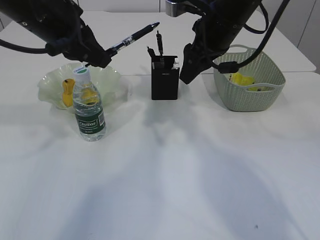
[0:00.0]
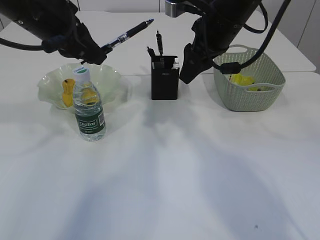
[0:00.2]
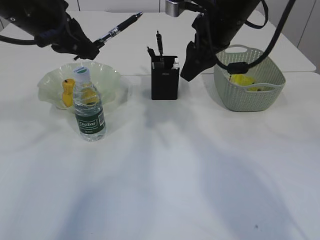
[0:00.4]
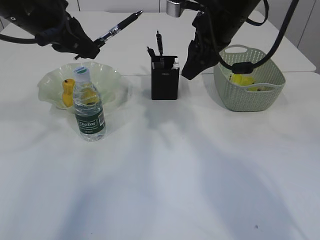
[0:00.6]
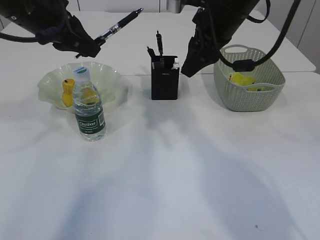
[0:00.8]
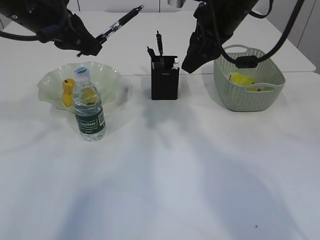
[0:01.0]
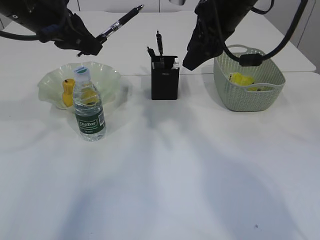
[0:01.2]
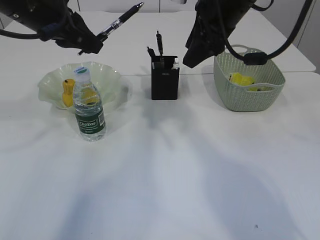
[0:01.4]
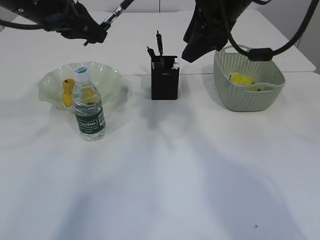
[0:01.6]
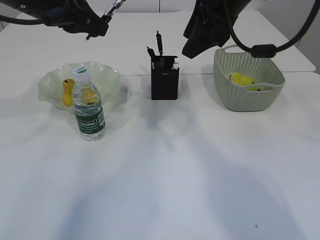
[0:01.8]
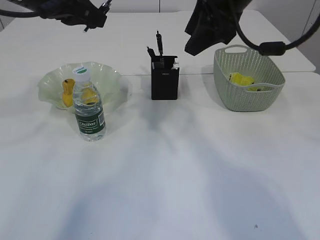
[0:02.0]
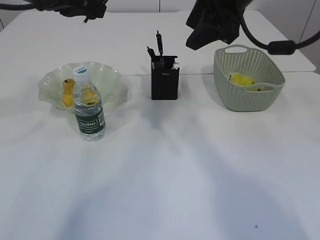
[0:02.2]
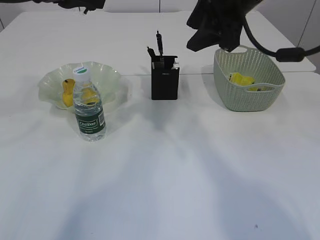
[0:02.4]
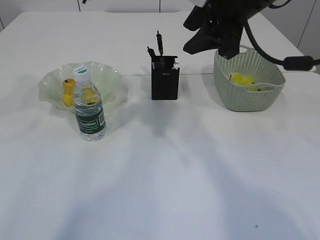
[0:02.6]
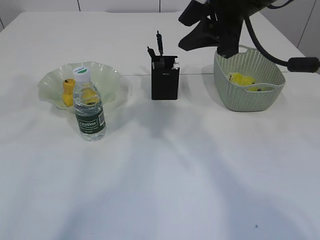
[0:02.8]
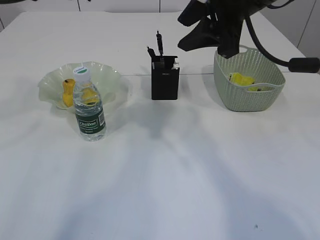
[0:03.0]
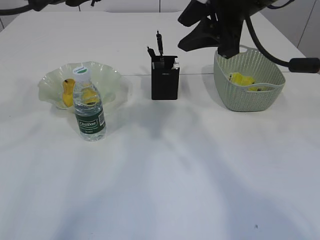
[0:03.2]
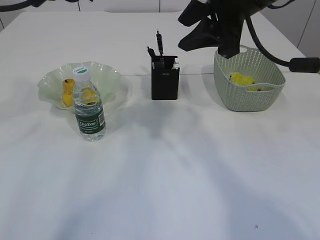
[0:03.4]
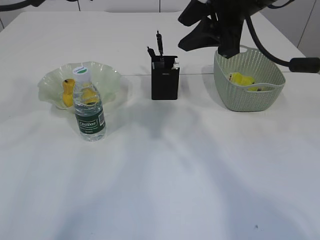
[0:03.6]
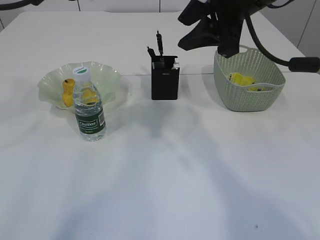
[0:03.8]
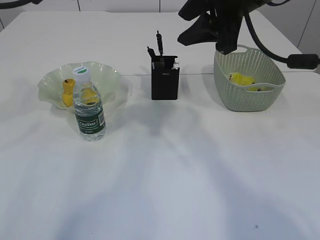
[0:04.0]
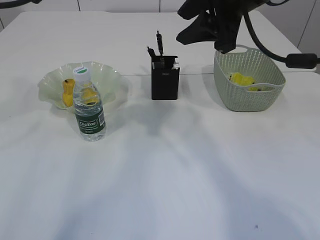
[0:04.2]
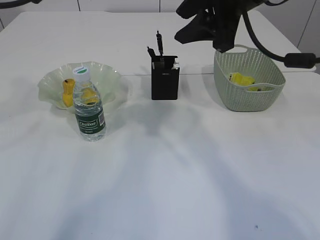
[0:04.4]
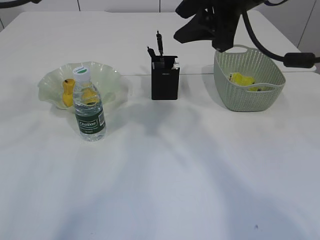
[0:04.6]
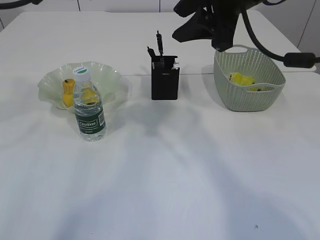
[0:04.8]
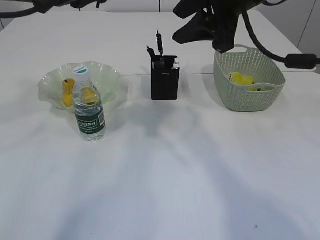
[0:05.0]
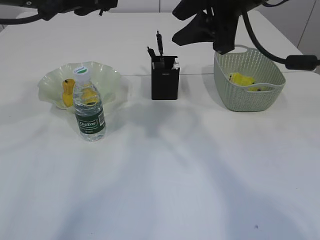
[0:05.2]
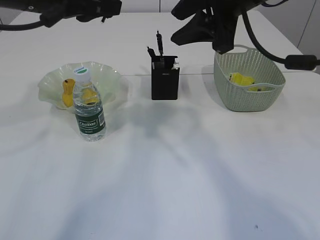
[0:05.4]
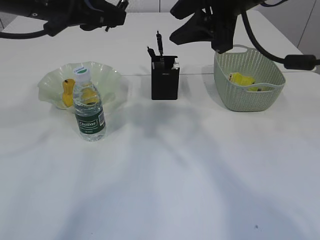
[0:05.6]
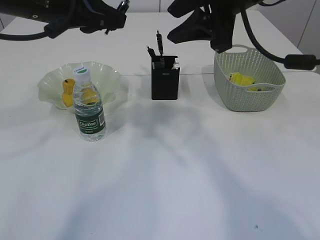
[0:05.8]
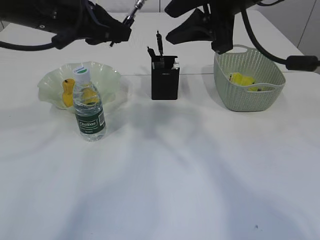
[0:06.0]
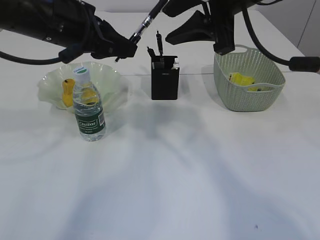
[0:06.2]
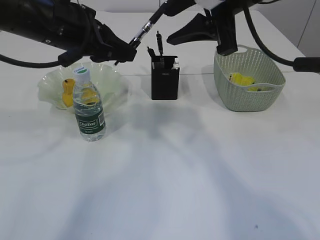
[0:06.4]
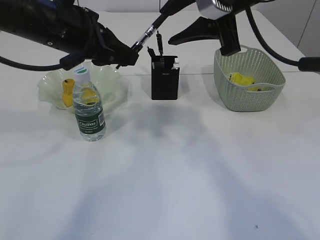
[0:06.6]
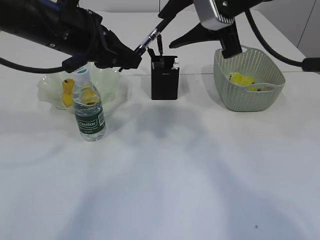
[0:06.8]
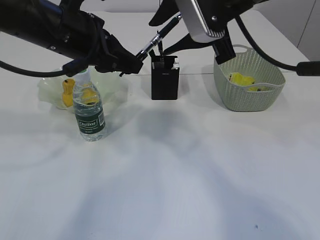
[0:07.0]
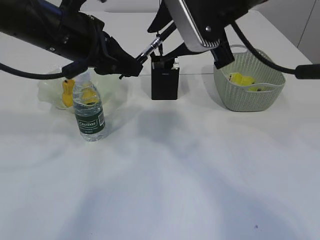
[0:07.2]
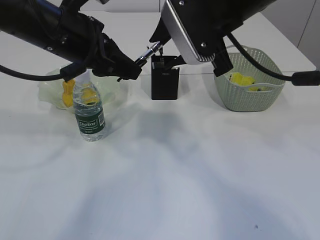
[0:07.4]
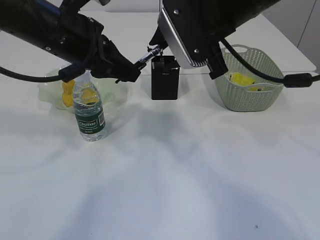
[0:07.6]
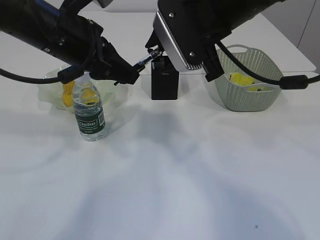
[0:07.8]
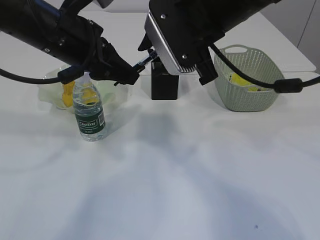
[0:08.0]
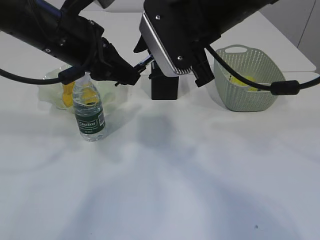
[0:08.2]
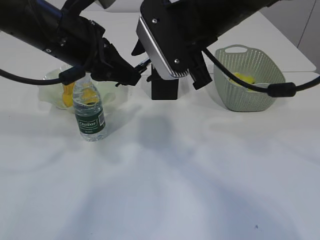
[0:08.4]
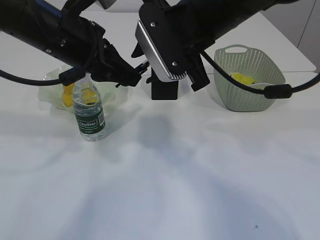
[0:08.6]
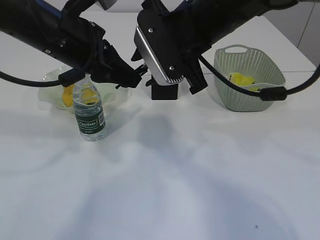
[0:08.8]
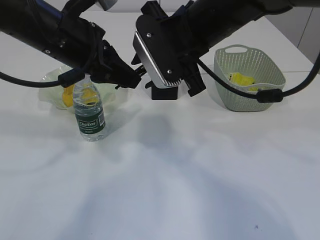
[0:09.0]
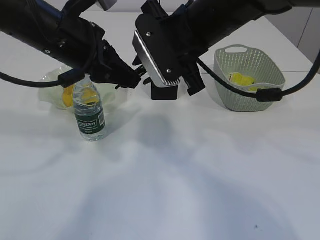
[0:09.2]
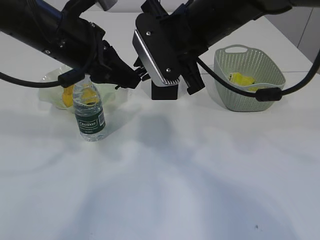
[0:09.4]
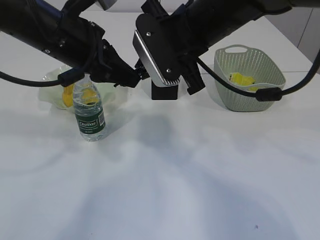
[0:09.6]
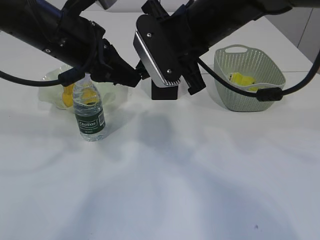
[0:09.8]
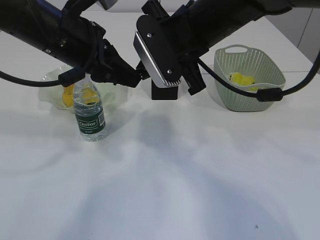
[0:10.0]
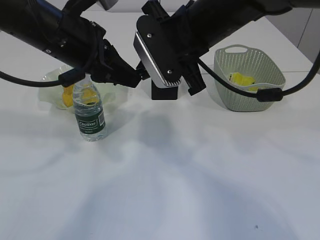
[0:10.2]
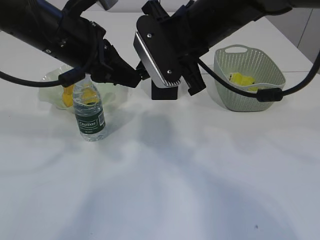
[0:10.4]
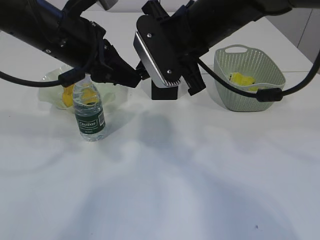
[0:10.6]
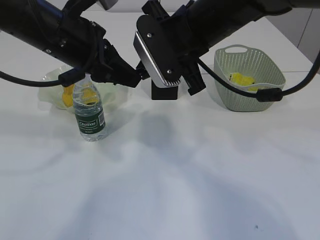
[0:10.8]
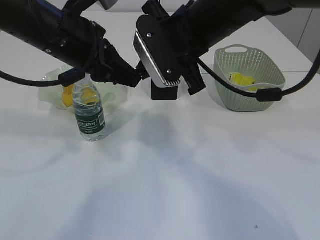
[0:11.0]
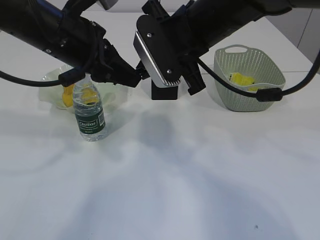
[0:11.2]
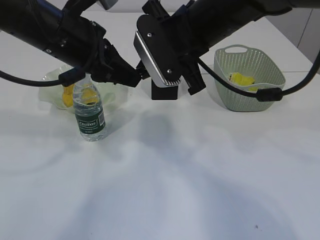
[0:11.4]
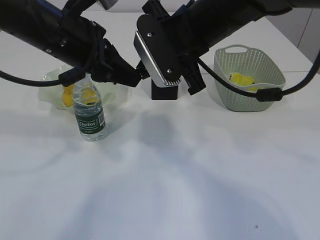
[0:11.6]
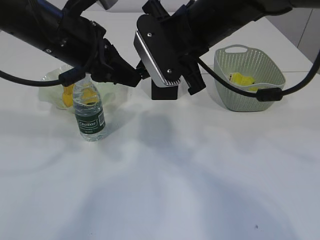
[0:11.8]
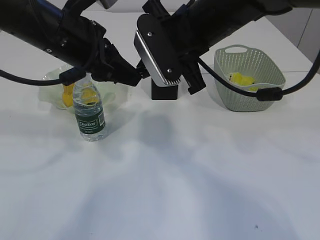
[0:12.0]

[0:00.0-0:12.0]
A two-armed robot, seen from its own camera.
0:00.0 to 0:01.6: The right gripper ends up approximately 5 cm from where it was.
0:03.0 to 0:06.0: The grippers move only a little.
0:07.6 to 0:09.0: The grippers make only small movements.
0:09.0 to 0:10.4: The right gripper closes up.
0:10.4 to 0:12.0: Both grippers stay put.

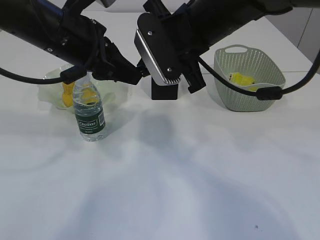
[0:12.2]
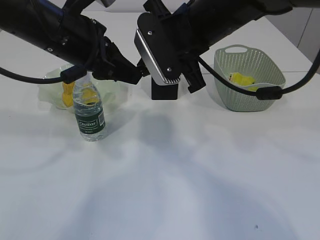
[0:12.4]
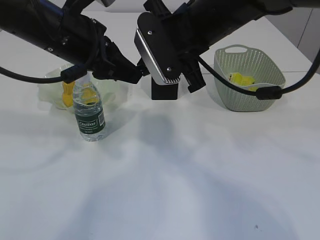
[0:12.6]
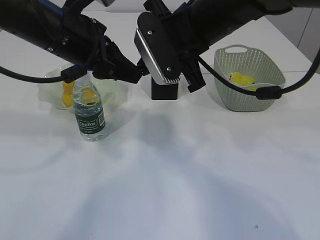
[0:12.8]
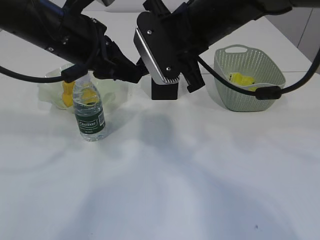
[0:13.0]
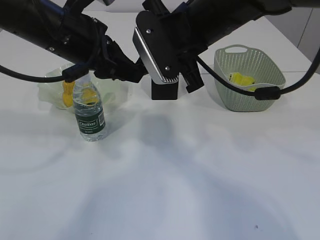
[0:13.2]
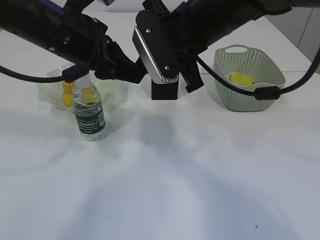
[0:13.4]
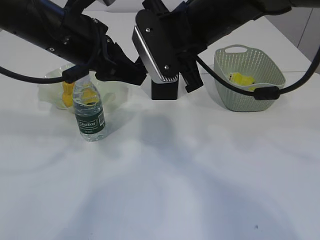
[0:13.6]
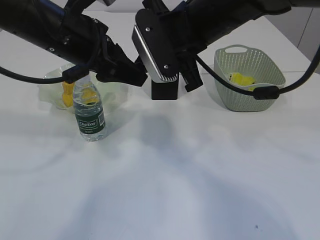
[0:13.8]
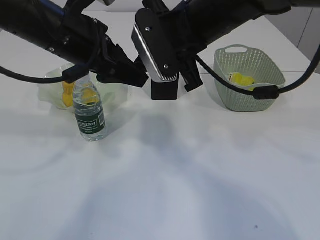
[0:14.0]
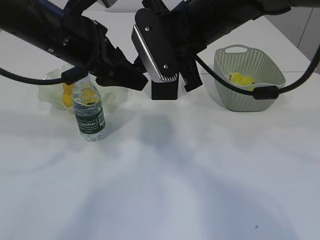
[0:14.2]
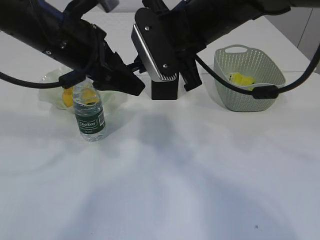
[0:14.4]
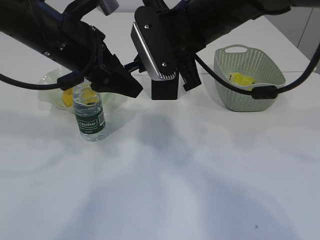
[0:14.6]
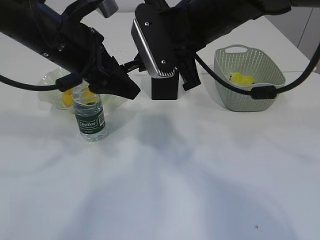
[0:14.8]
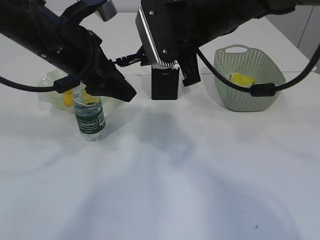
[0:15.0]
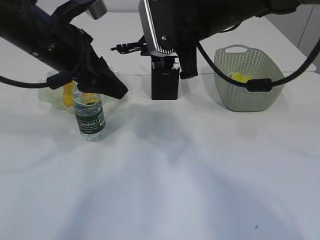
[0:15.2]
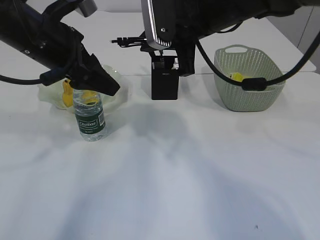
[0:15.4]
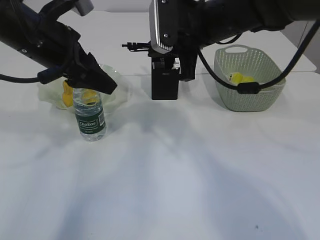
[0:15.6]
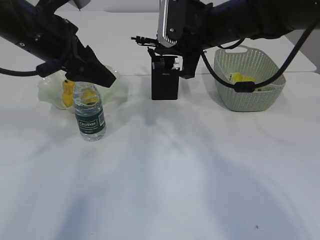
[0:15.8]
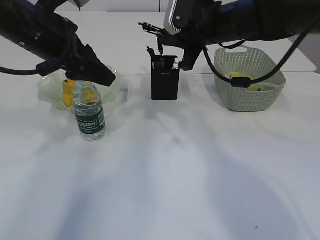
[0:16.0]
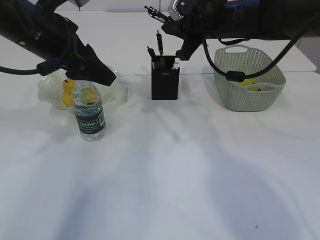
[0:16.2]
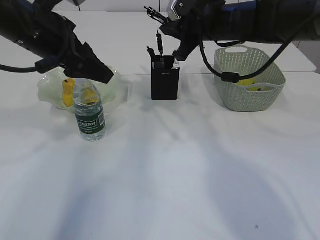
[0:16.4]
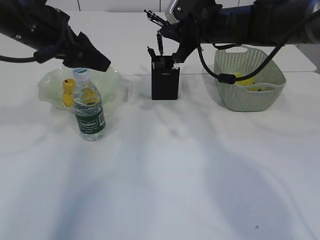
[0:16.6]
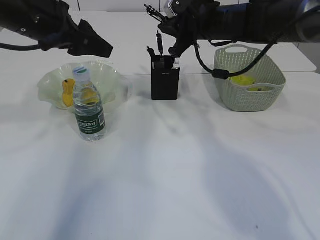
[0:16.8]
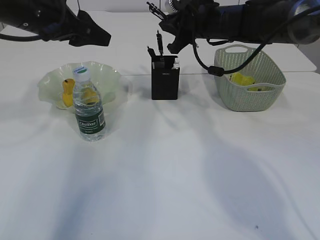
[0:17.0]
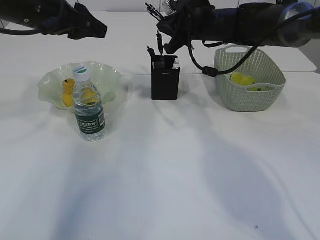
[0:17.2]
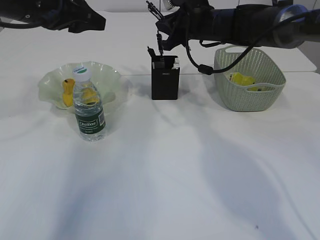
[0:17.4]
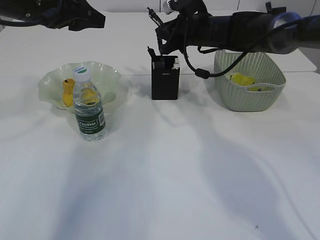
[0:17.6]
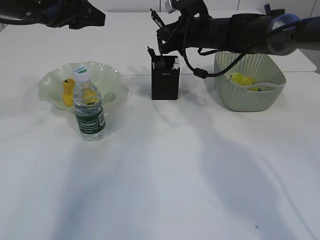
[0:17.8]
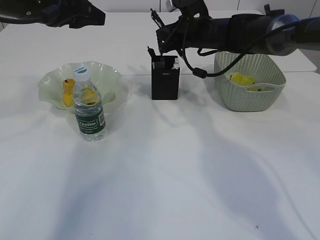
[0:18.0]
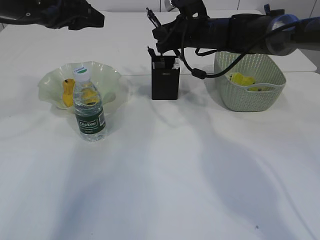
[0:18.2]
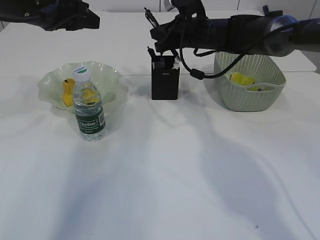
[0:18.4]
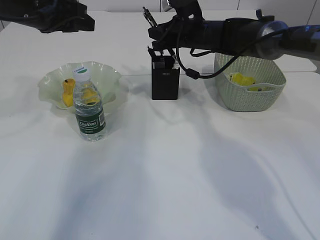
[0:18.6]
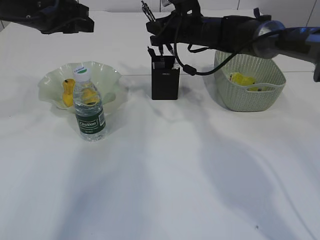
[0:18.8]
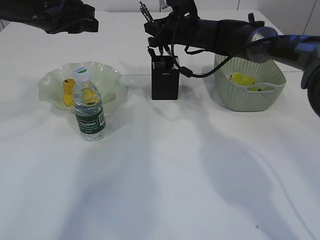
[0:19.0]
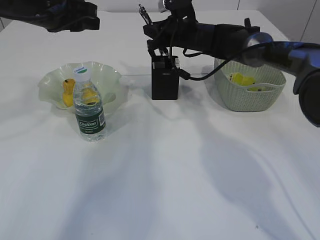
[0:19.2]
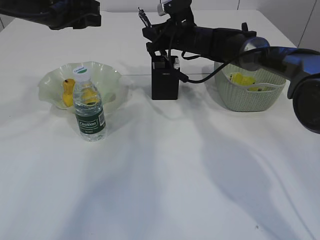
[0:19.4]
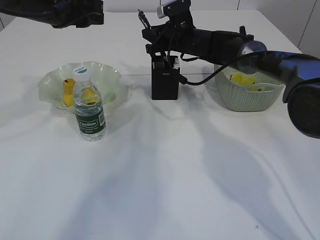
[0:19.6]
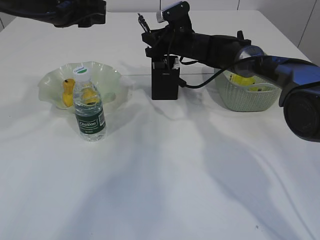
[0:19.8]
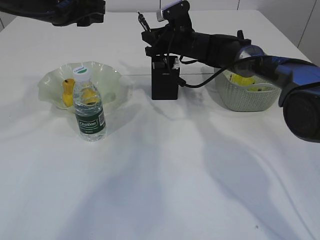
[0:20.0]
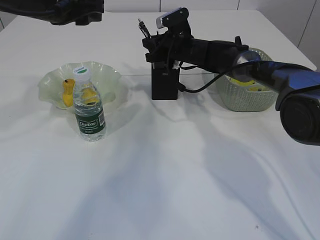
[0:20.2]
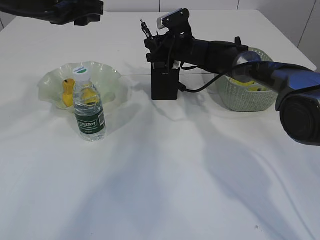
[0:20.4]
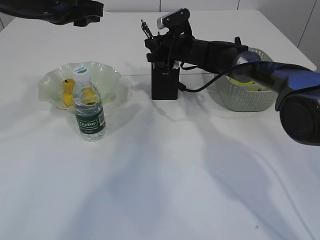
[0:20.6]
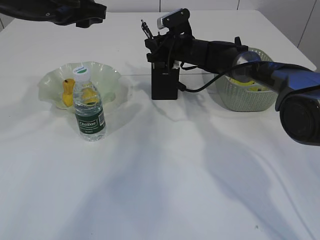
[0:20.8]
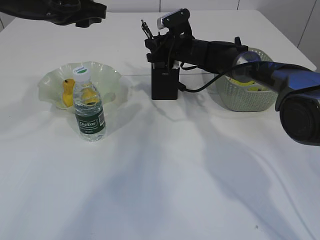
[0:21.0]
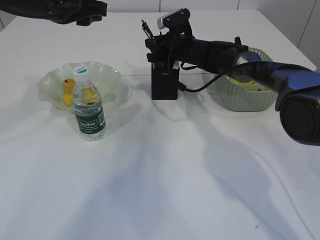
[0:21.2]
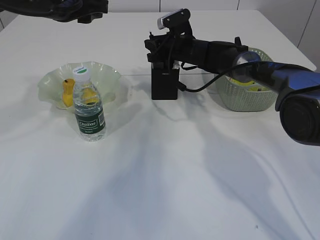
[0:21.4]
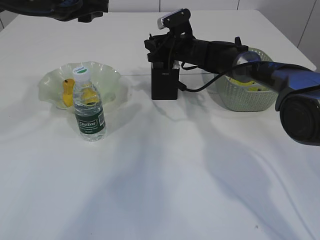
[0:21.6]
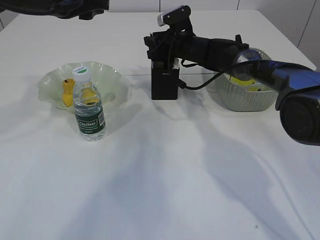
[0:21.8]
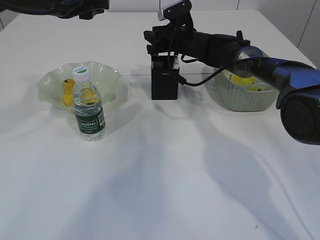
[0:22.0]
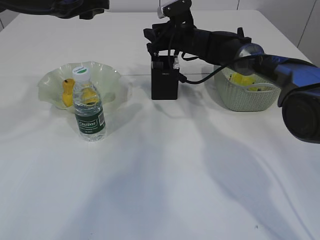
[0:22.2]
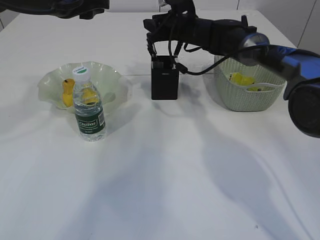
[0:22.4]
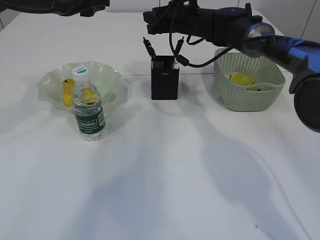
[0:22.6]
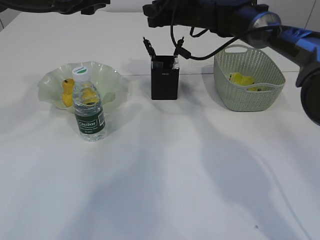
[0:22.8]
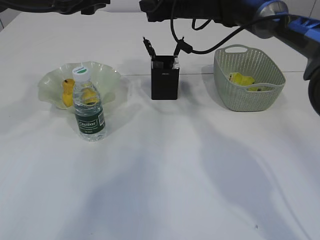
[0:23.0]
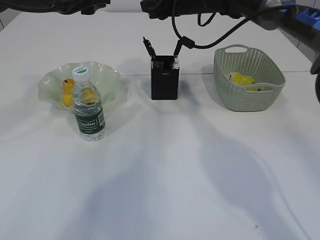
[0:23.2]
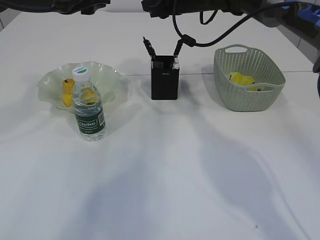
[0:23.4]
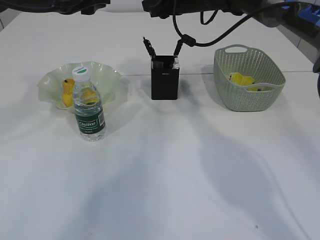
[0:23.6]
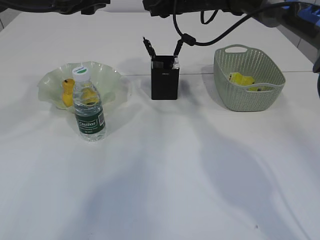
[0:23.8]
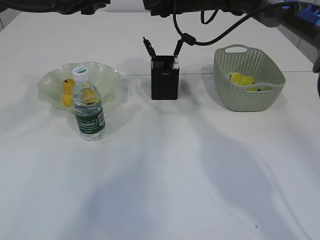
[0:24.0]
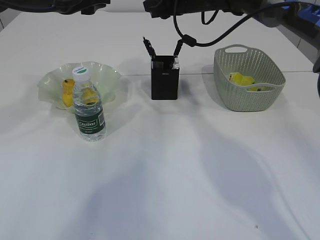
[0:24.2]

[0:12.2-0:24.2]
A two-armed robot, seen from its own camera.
Step, 0:12.2 to 0:15.0: transfer the pen to the right arm.
Step, 0:15.2 to 0:22.4: Place the pen into the pen holder.
0:12.2 to 0:13.8: The left gripper opens up.
0:13.8 to 0:15.2: The left gripper opens.
0:15.2 to 0:16.6: The right gripper heads forward and downward, covering some 10 cm.
0:16.6 to 0:18.2: The right gripper is displaced forward by about 5 cm.
0:18.2 to 0:19.8: The right gripper travels forward by approximately 5 cm.
0:19.8 to 0:21.2: The grippers stay close to where they were, moving slightly.
0:21.2 to 0:22.6: The right gripper goes some 5 cm upward.
0:22.6 to 0:24.2: The right gripper moves upward, approximately 5 cm.
